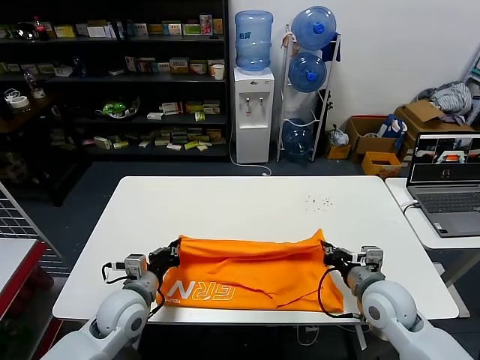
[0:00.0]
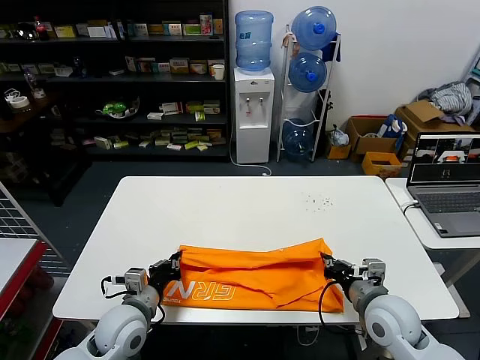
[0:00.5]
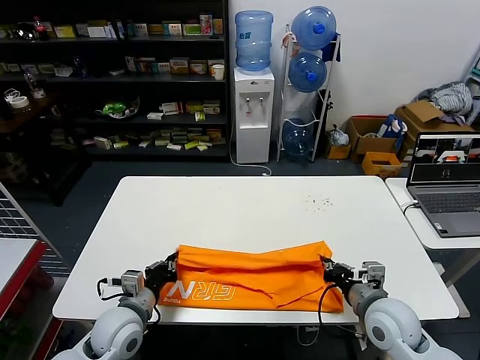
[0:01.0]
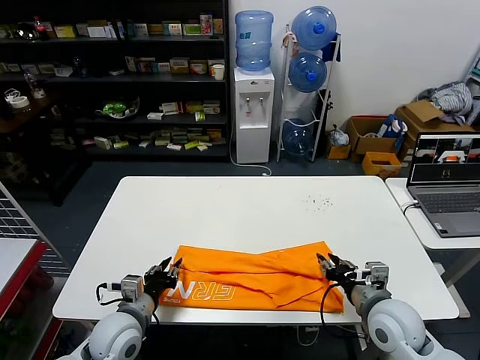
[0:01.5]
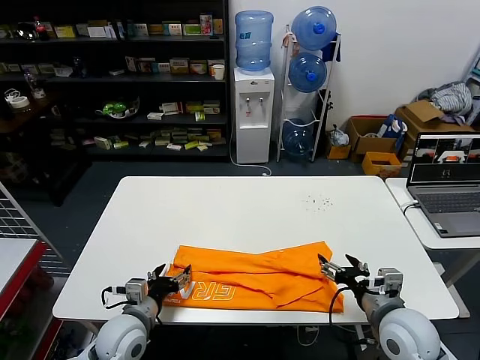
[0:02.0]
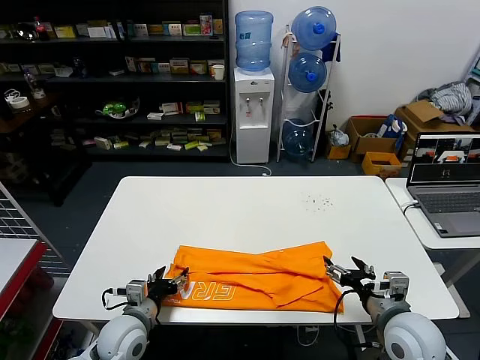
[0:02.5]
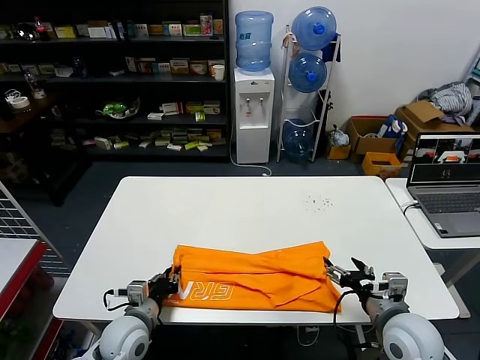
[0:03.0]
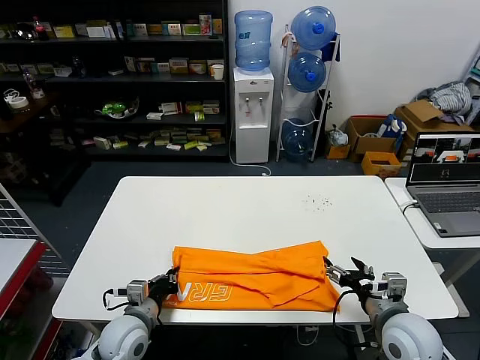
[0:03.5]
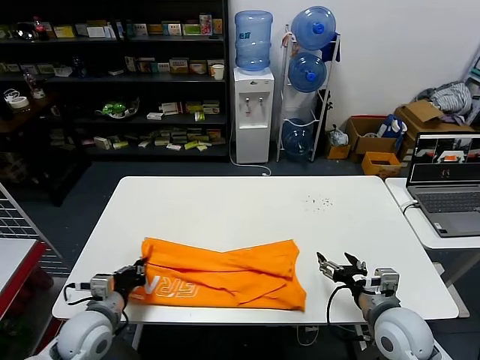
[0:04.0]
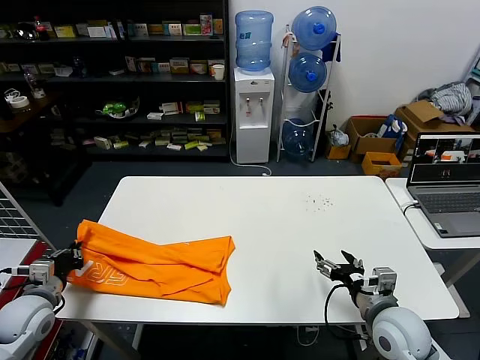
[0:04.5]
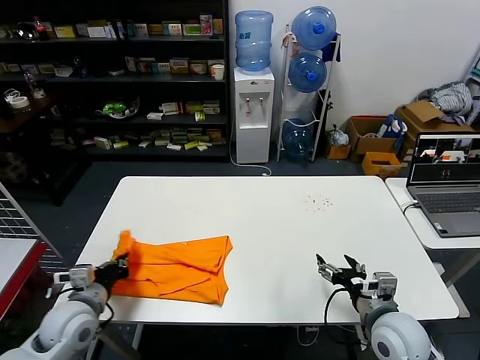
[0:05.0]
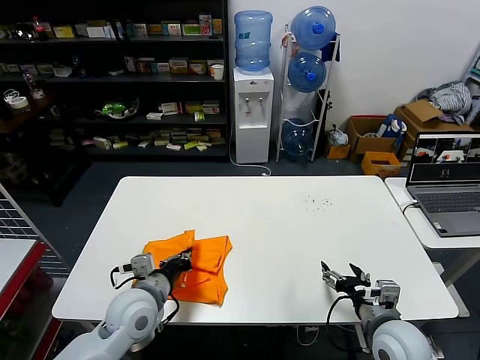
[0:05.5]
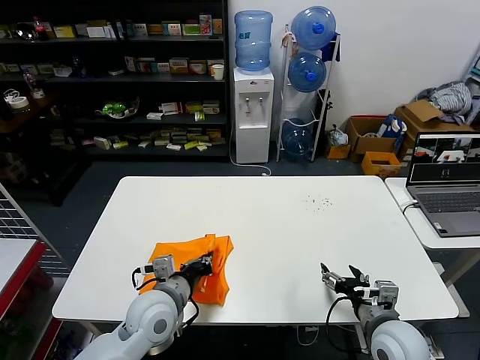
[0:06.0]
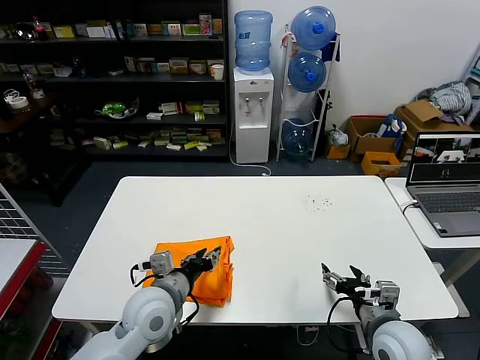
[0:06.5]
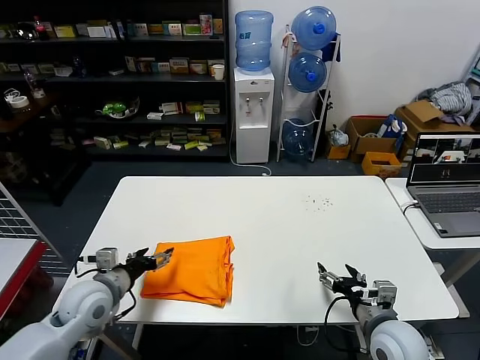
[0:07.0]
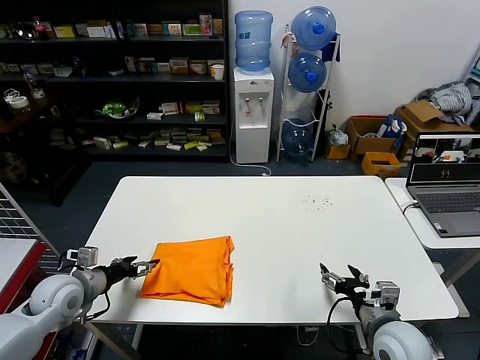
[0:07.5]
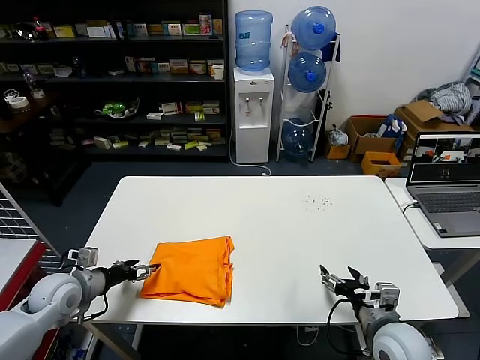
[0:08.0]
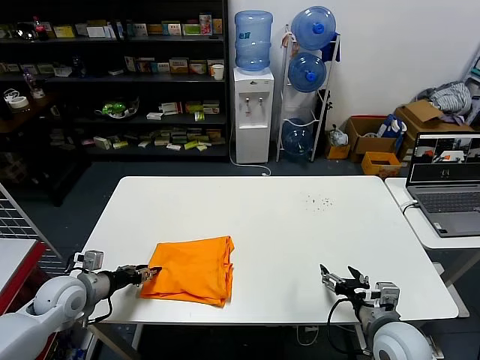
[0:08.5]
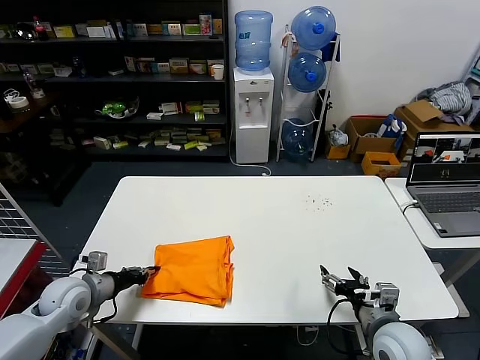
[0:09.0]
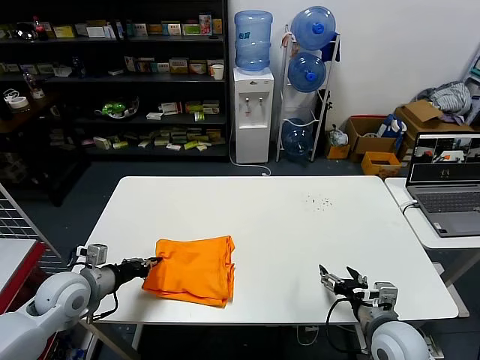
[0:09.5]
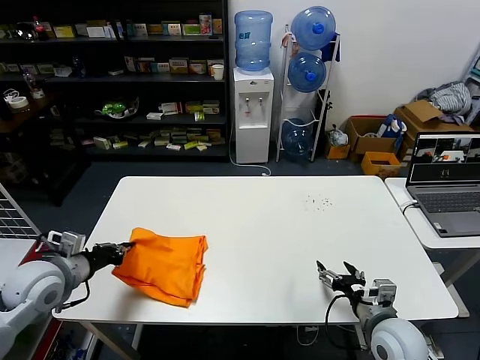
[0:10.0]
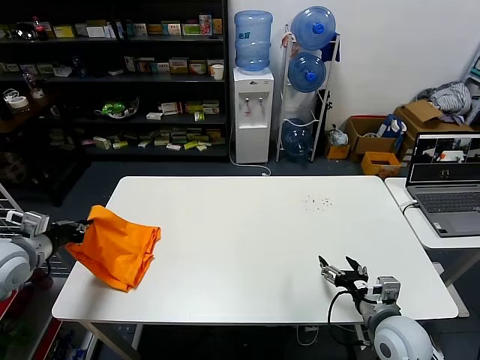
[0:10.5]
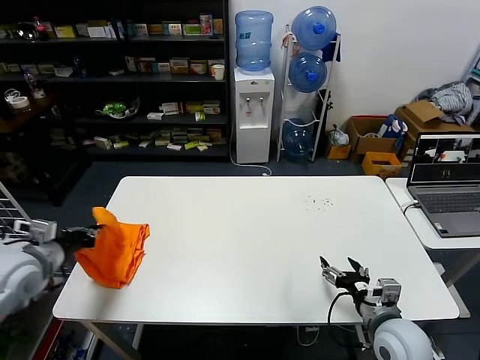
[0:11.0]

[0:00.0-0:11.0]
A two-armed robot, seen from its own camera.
Task of the whole recording: fold and organize the clothes.
Step, 0:00.0 to 0:01.5: use both grippers to drag the upper edge of the fabric backward and fold it over the lower edge.
Step, 0:02.0 to 0:03.0: use the left gripper to clamp the left edge of the fabric.
Step, 0:03.5 to 0:06.0: use the left gripper to drag the left edge of the fabric to the left and folds it over the right edge.
0:00.0 to 0:02.0: The right gripper shifts roughly 5 cm backward, and opens its fingers. Meanwhile the left gripper ends up some 5 cm from where it was, and opens up.
0:02.0 to 0:03.5: The left gripper closes its fingers.
0:03.5 to 0:05.5: The left gripper goes about 10 cm upward, and moves about 20 cm to the left and comes back.
0:05.5 to 0:07.5: The left gripper heads to the left, covering roughly 15 cm, and opens.
0:07.5 to 0:09.0: The left gripper closes its fingers.
0:09.0 to 0:11.0: The left gripper moves upward and to the left, roughly 15 cm.

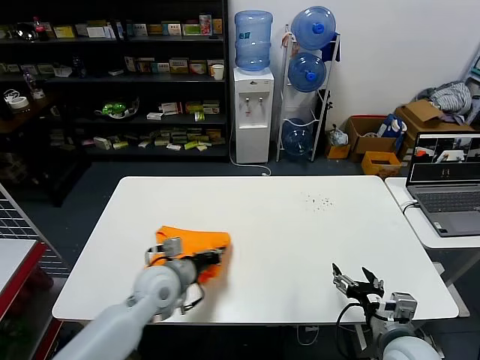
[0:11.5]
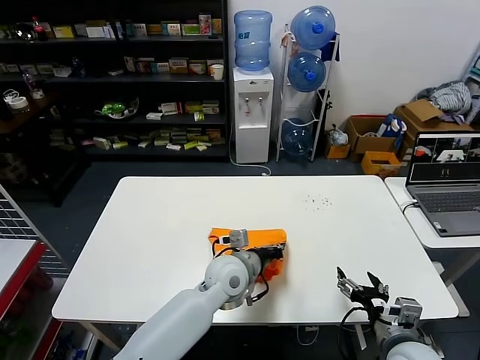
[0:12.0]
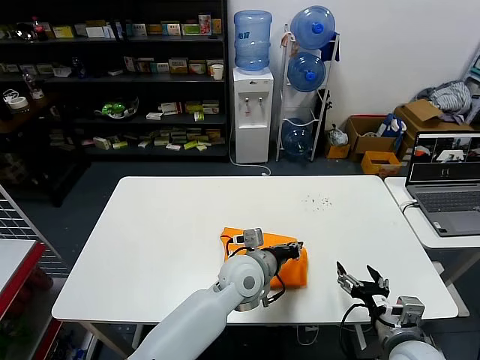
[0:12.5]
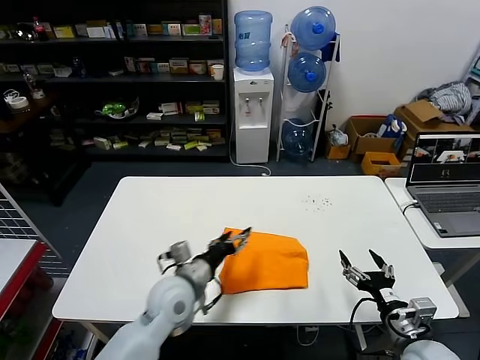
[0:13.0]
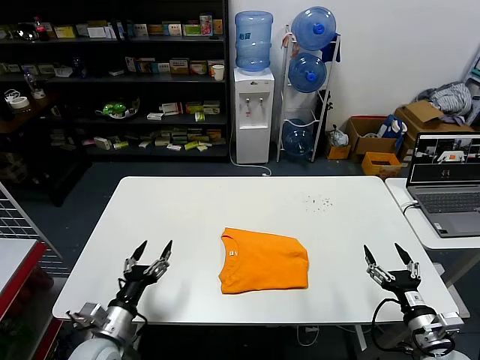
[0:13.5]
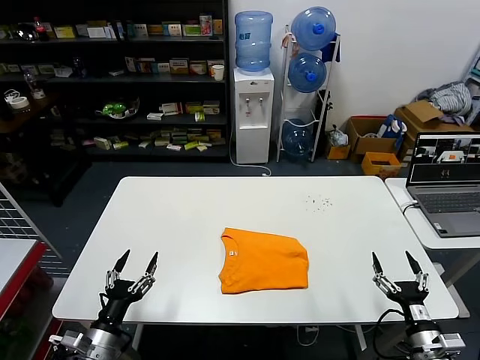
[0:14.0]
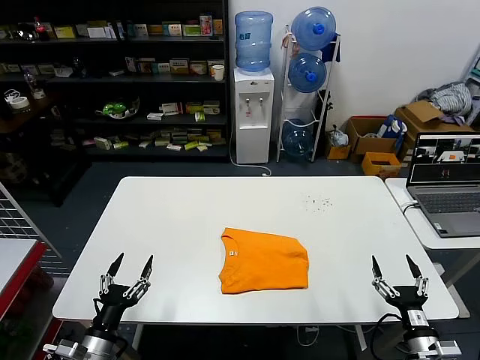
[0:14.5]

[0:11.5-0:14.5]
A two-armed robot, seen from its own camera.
Task of the whole recording: fold and organize the clothes.
0:11.5 to 0:13.0: The left gripper travels to the right by approximately 10 cm, and opens.
0:13.0 to 0:14.5: The right gripper moves downward and to the right, roughly 10 cm. Meanwhile the left gripper is displaced to the left, backward and downward by some 30 cm.

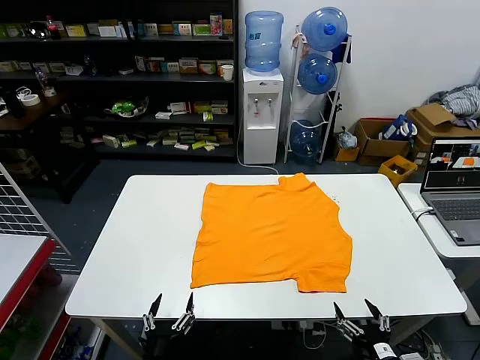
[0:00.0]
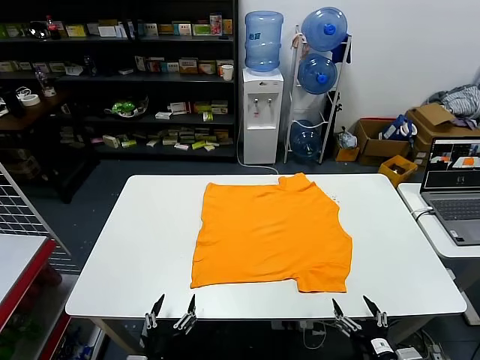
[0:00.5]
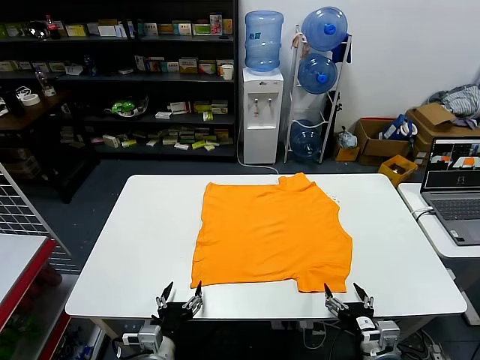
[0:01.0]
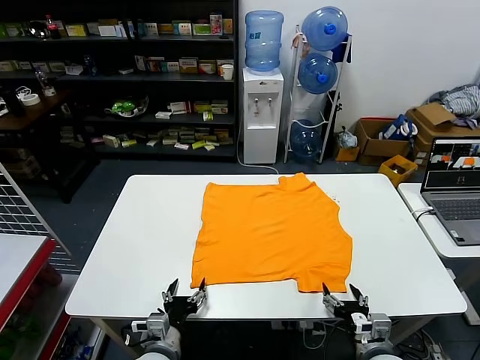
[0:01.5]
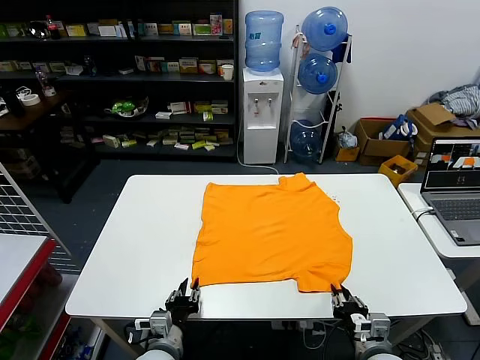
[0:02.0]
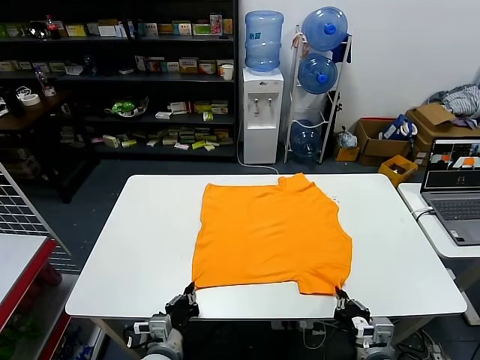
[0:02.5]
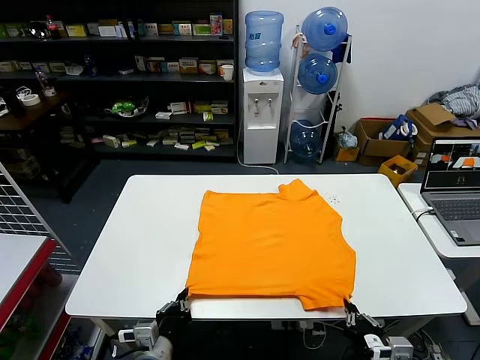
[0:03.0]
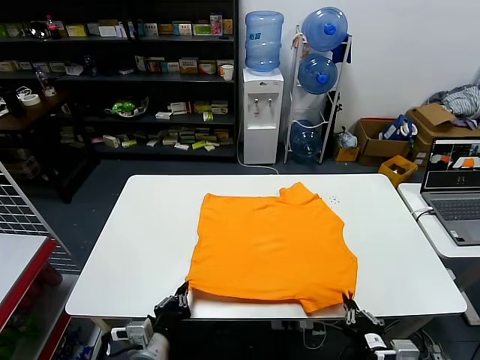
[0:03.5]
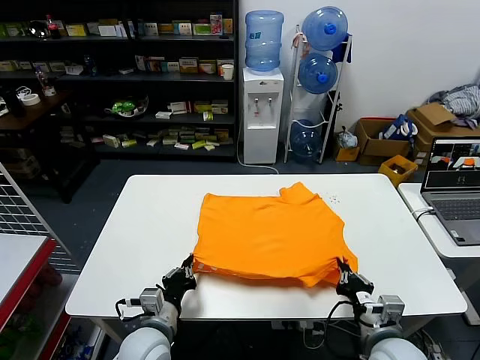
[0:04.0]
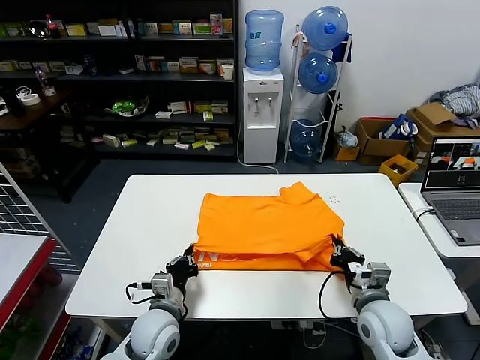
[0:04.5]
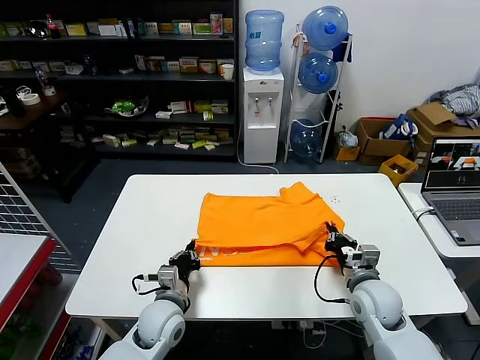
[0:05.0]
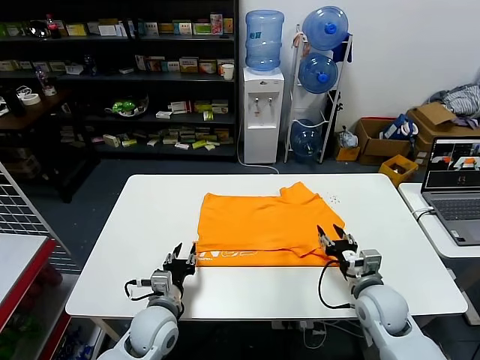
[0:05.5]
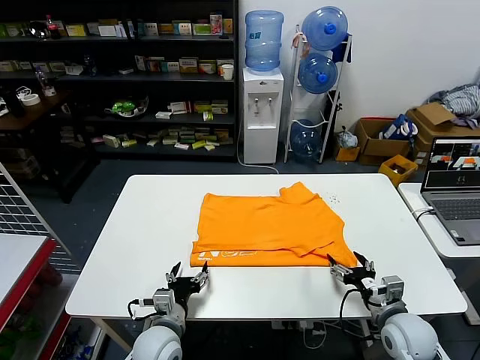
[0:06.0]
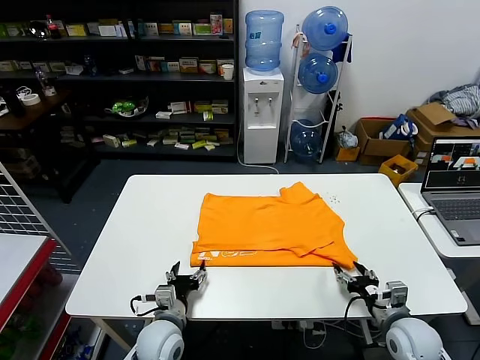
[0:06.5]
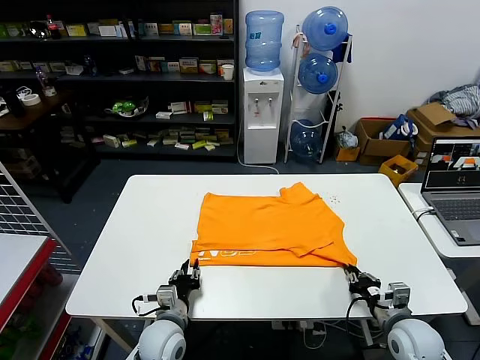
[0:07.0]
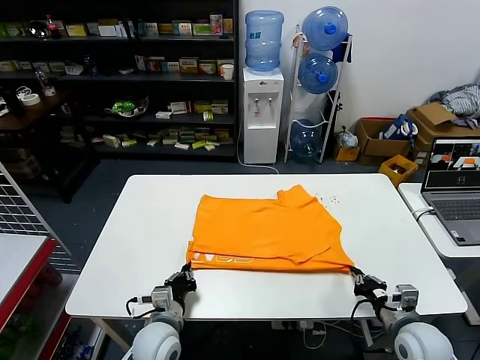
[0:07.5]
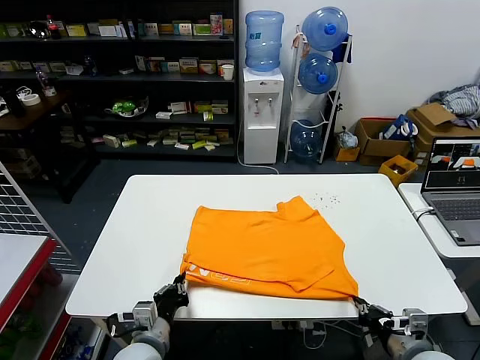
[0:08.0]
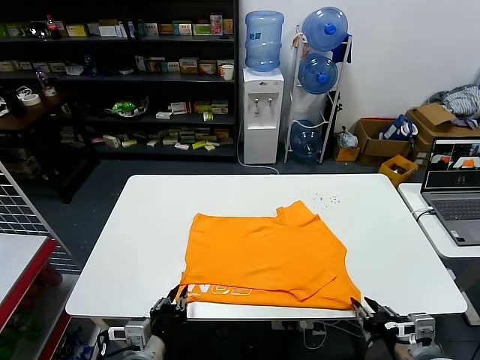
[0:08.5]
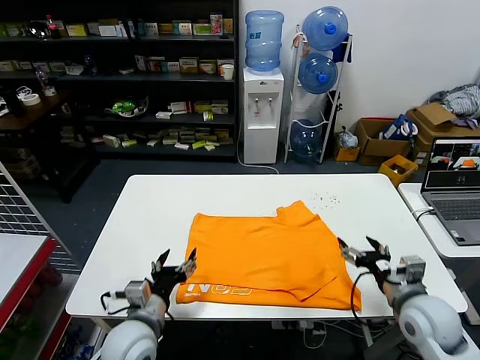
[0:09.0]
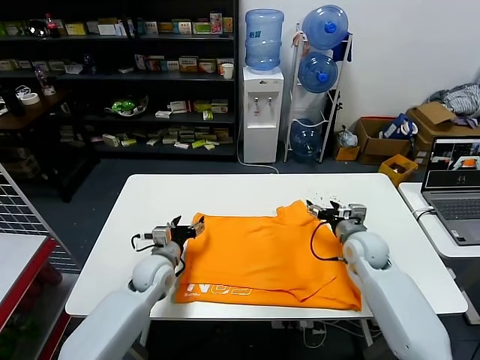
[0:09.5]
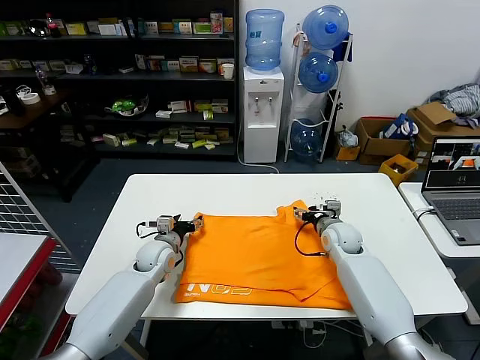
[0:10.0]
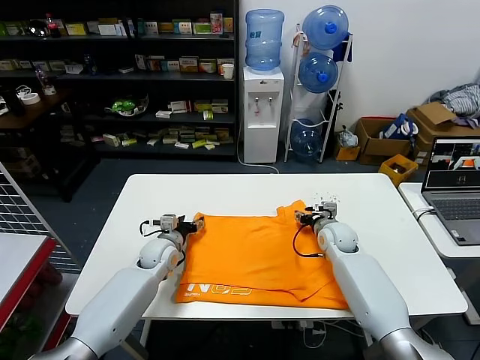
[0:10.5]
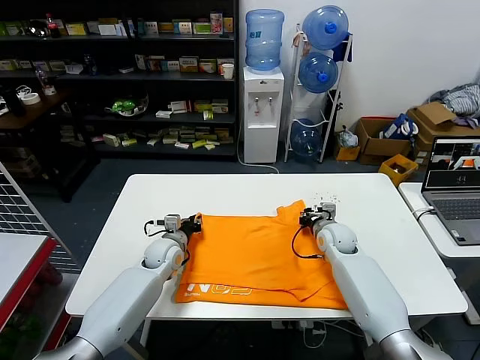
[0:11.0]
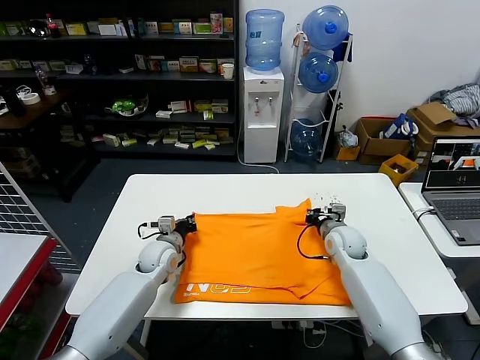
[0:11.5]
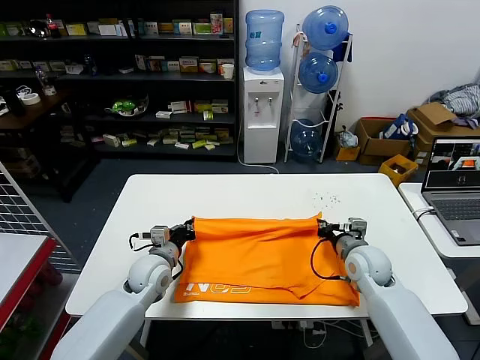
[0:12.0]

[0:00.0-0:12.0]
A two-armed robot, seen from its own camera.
Task of the whole recording: fold and organize the clothes.
Step, 0:00.0 to 0:02.0: use both grippers simultaneously to clamp the lower edge of the clothing fabric.
Step, 0:03.0 to 0:05.5: use both grippers to drag the lower edge of the fabric forward and fold it over the upper edge.
Step, 0:06.0 to 0:08.5: Drag the clothes downward with both gripper.
Step, 0:09.0 to 0:11.0: use both grippers simultaneously to clamp the upper edge of the clothing fabric.
0:02.0 to 0:04.0: The two grippers go some 5 cm upward. The left gripper closes up, while the right gripper goes backward and returns, about 5 cm each way.
0:04.0 to 0:06.0: The left gripper opens its fingers; the right gripper moves to the right, approximately 5 cm, and opens.
0:06.0 to 0:08.0: The left gripper changes place by about 5 cm, and closes its fingers. Meanwhile the right gripper goes roughly 10 cm backward, and closes its fingers.
0:08.0 to 0:10.0: Both grippers move forward, approximately 30 cm. The left gripper opens. The right gripper opens up.
0:10.0 to 0:12.0: The right gripper shifts approximately 10 cm backward, and closes. The left gripper travels backward by about 5 cm, and closes its fingers.
